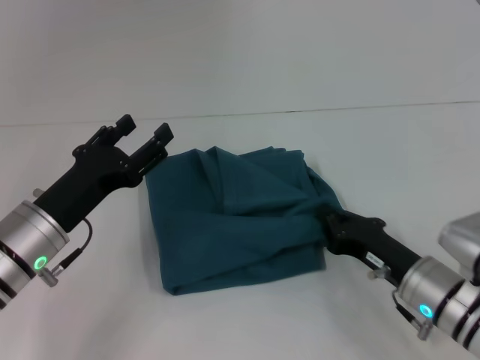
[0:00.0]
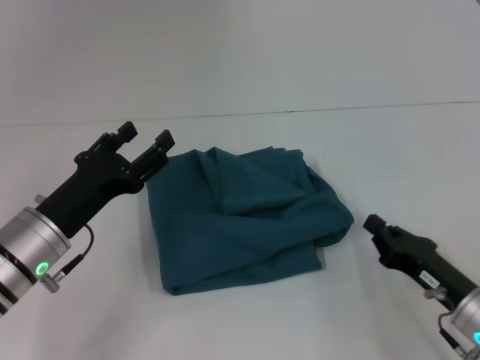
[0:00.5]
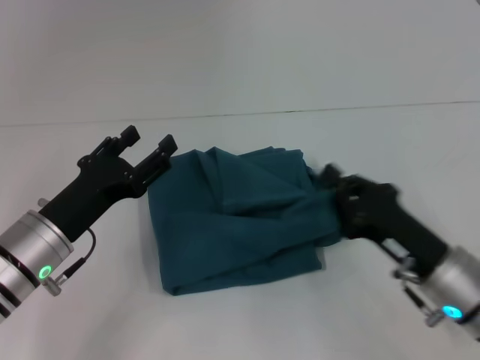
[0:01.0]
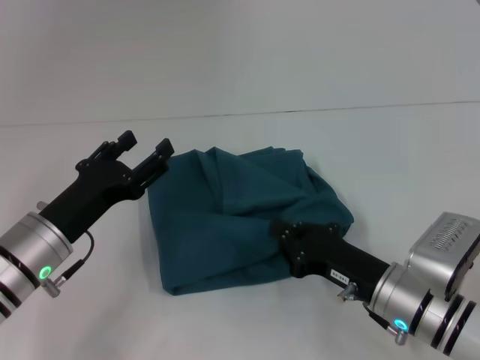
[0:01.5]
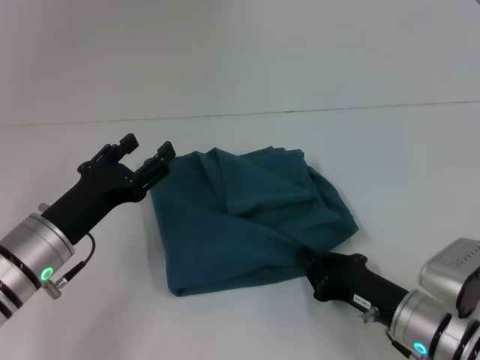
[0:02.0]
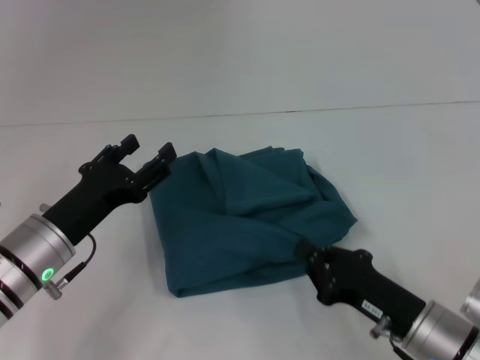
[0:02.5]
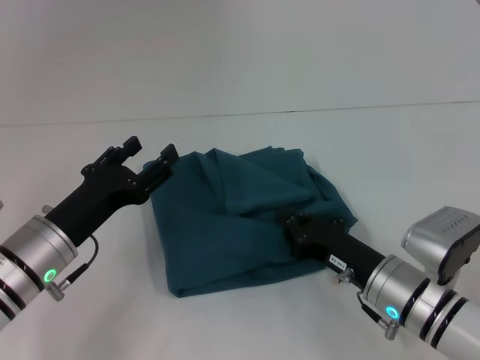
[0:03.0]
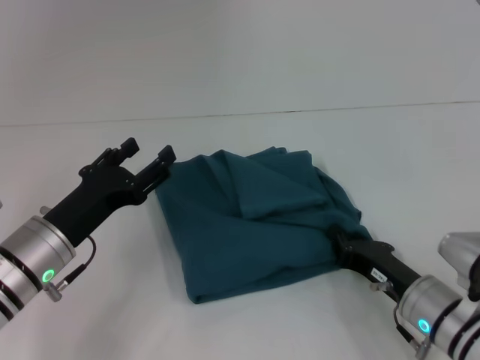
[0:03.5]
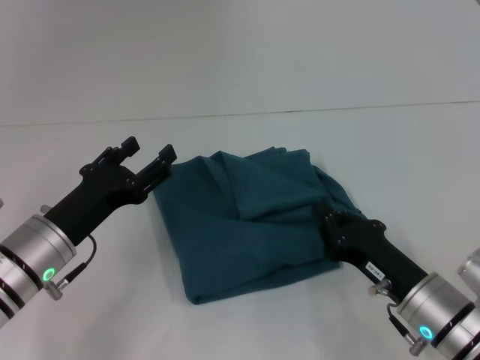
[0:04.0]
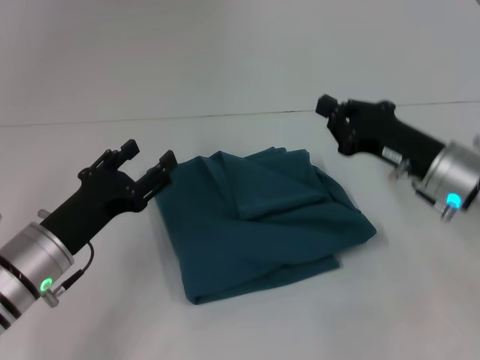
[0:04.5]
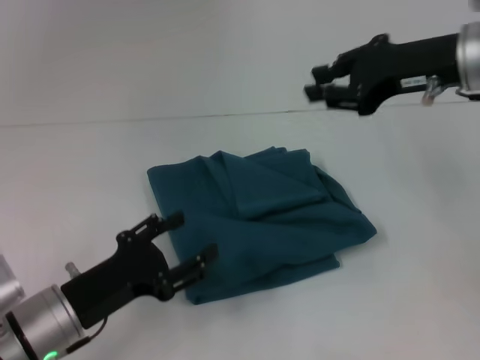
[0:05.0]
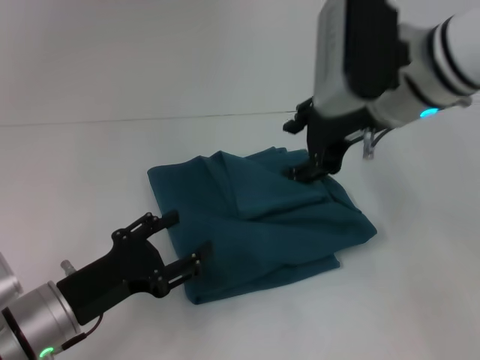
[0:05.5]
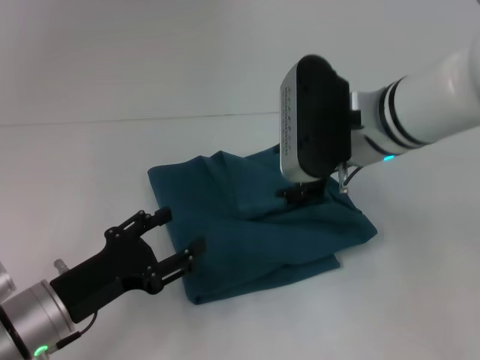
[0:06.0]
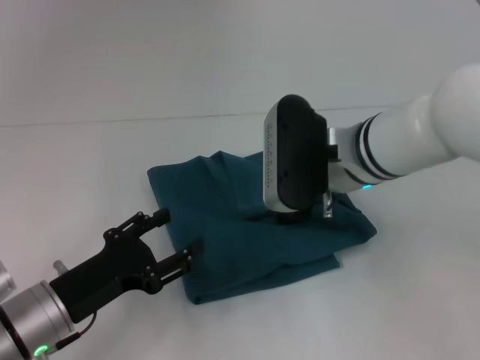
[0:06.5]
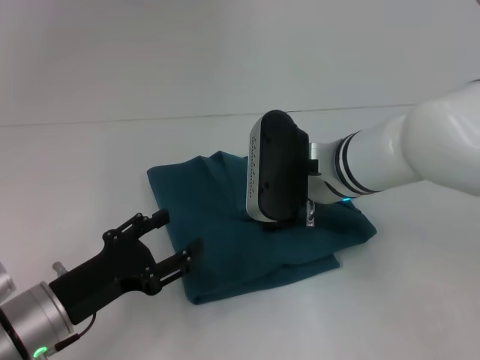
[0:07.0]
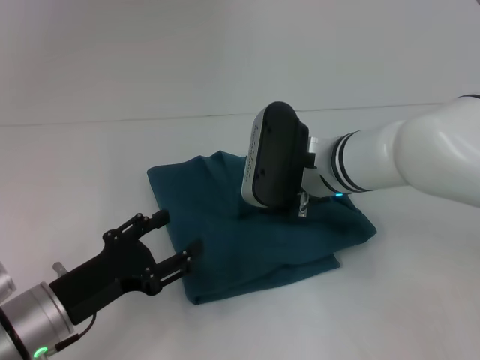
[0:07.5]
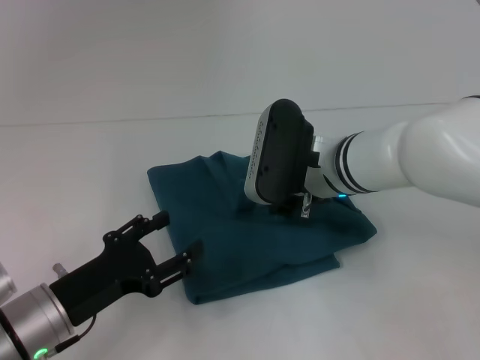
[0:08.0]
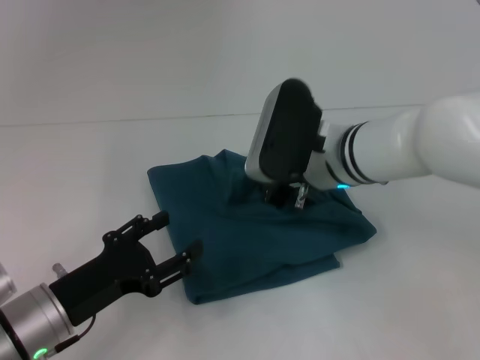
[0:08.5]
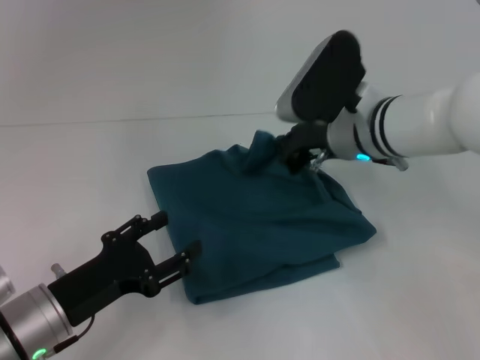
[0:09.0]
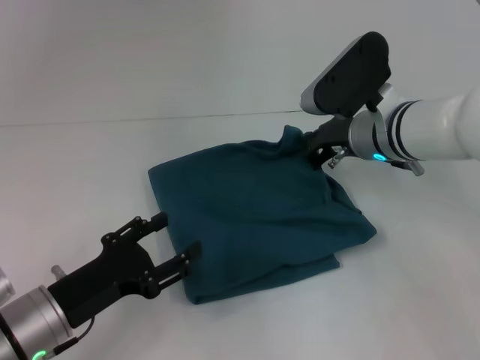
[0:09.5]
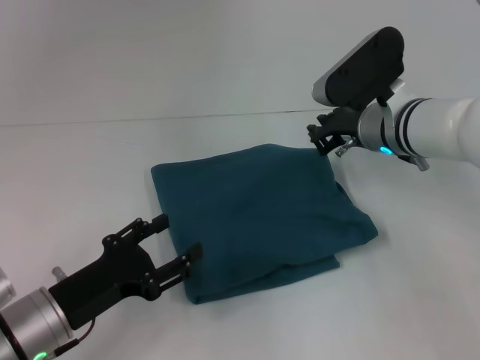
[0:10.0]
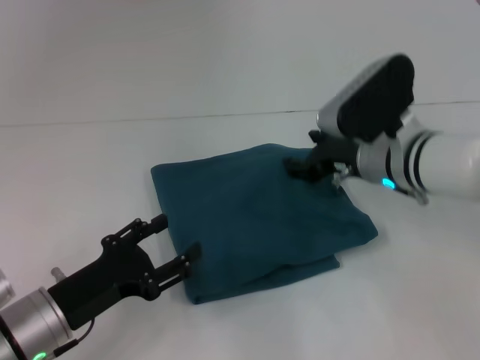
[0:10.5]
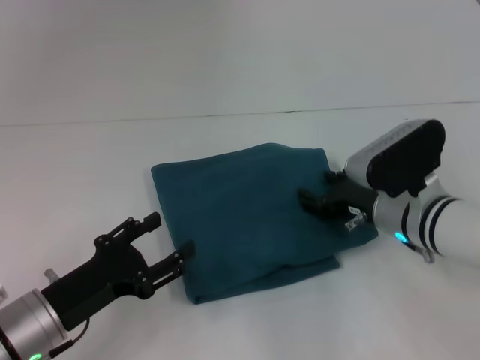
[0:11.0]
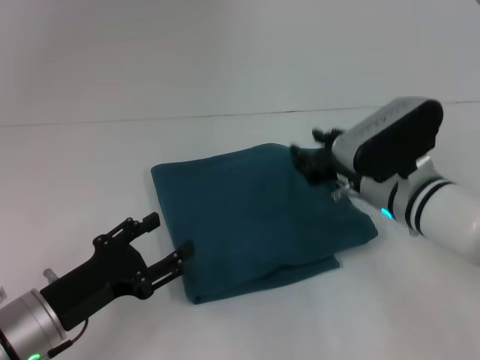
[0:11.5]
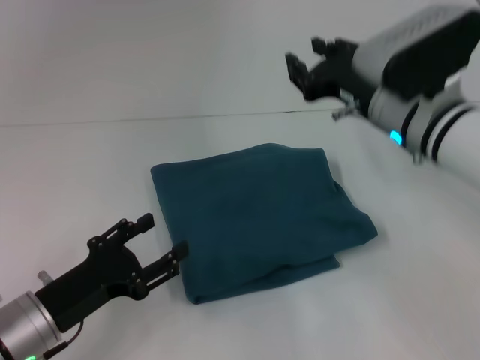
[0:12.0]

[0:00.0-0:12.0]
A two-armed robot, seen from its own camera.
0:02.0 to 0:04.0: The grippers stay close to where they were, moving slightly.
0:04.0 to 0:06.0: The right gripper shifts approximately 25 cm upward, forward and to the left, and opens. The left gripper ends up roughly 5 cm from where it was.
0:06.0 to 0:08.0: The right gripper travels downward by roughly 5 cm, and closes its fingers.
0:08.0 to 0:10.0: The right gripper travels to the right by some 5 cm.
0:10.0 to 0:12.0: The right gripper moves backward, some 5 cm, and opens up.

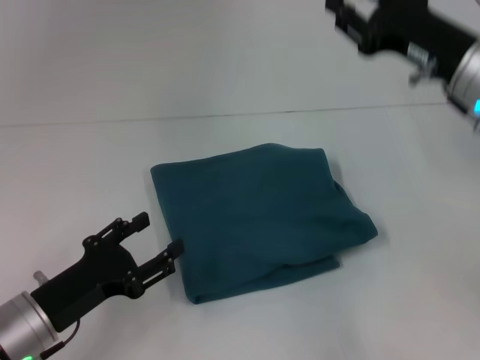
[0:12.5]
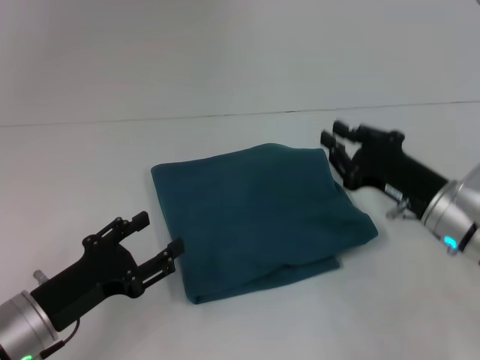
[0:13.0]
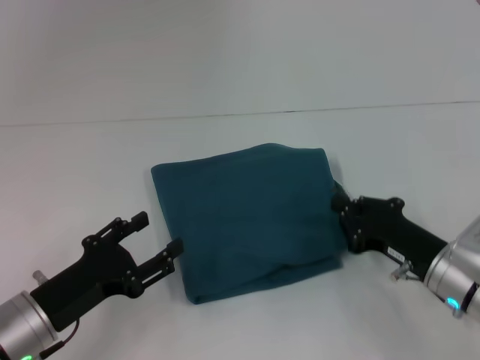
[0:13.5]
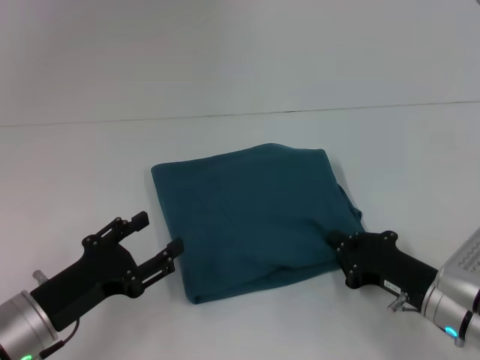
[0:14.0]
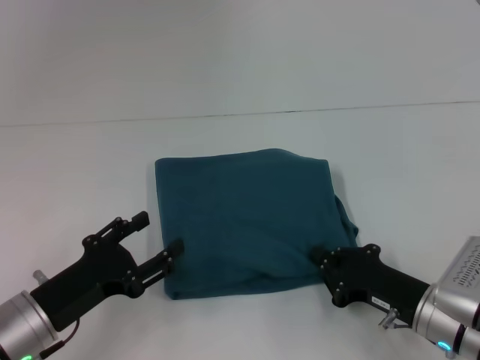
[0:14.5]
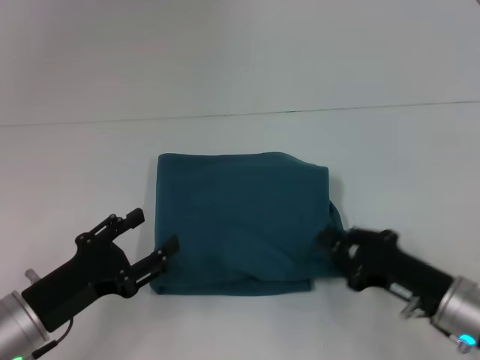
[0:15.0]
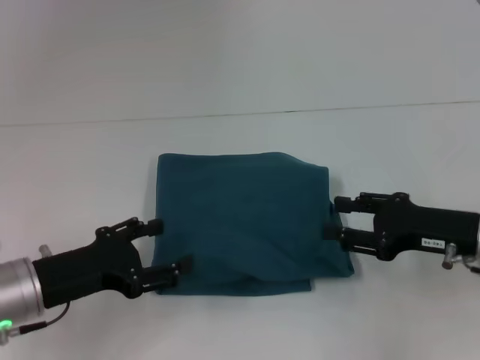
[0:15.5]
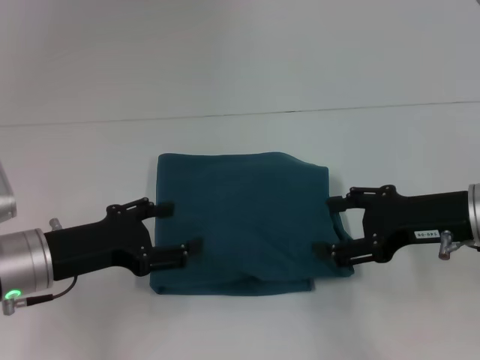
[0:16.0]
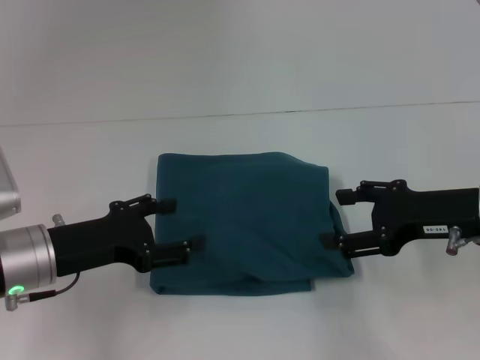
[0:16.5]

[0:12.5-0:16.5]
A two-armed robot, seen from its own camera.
0:12.5 to 0:14.5: The right gripper goes some 25 cm downward and backward, and closes.
0:14.5 to 0:16.5: The right gripper heads upward, covering some 15 cm, and opens; the left gripper travels upward and forward by some 10 cm.
